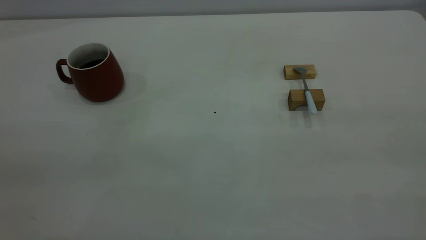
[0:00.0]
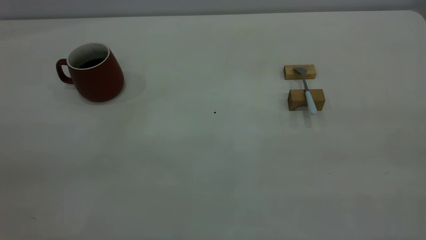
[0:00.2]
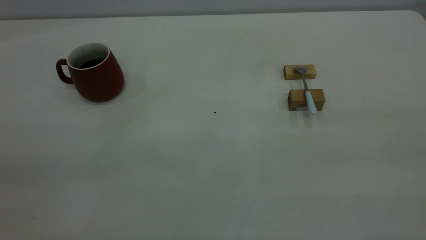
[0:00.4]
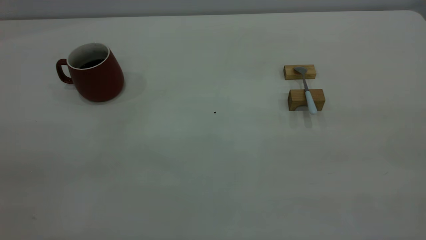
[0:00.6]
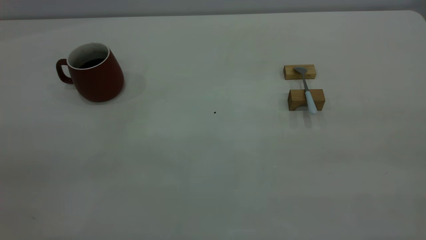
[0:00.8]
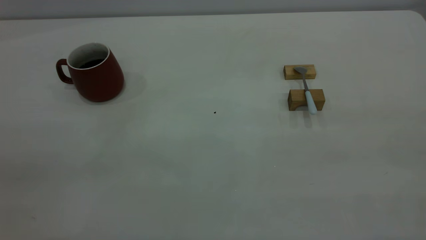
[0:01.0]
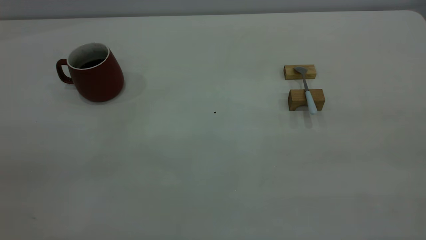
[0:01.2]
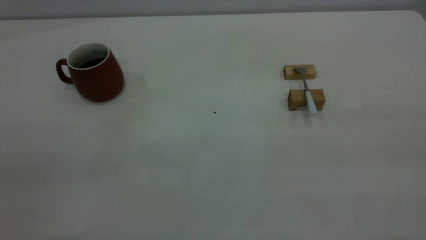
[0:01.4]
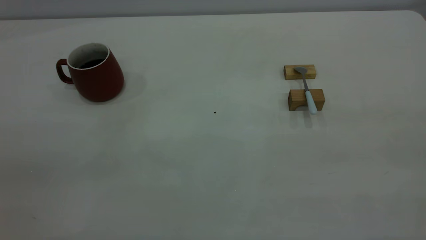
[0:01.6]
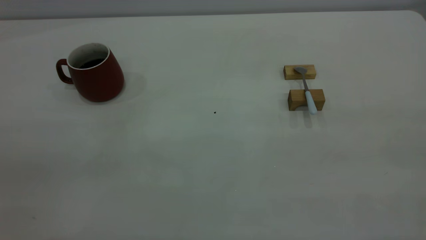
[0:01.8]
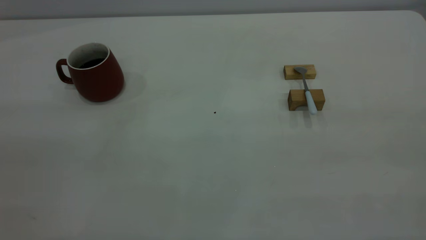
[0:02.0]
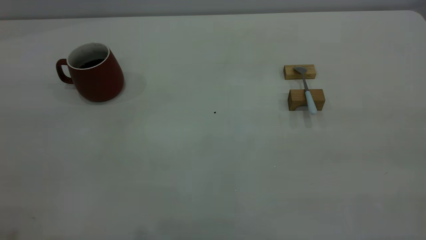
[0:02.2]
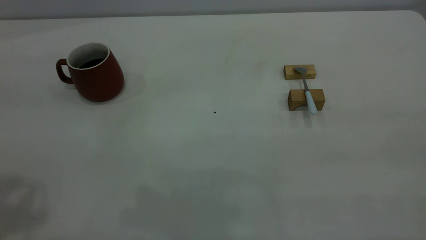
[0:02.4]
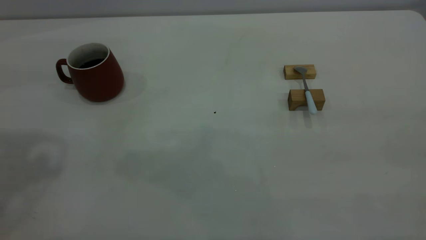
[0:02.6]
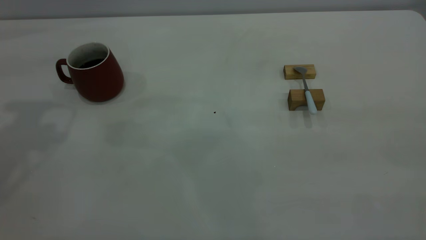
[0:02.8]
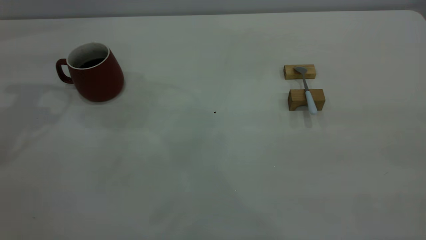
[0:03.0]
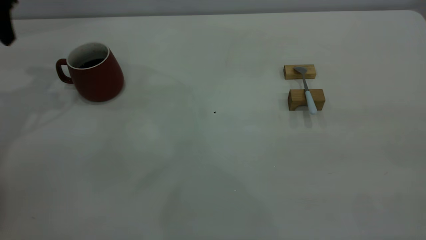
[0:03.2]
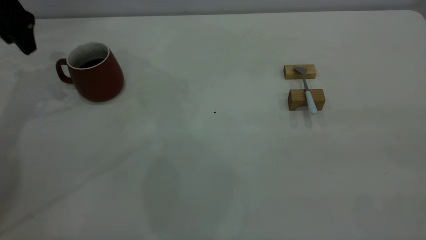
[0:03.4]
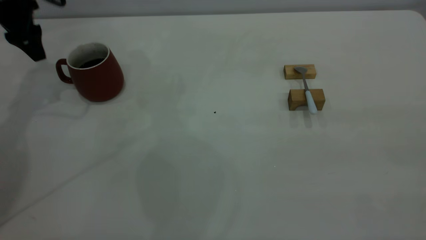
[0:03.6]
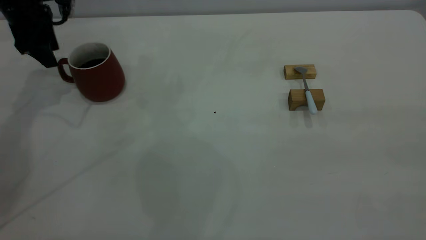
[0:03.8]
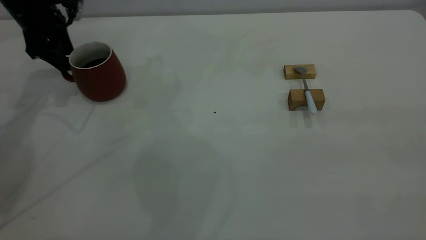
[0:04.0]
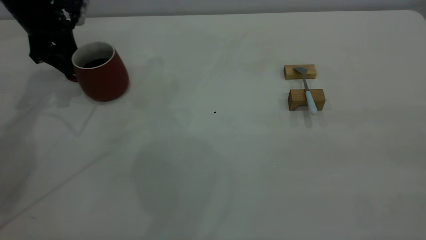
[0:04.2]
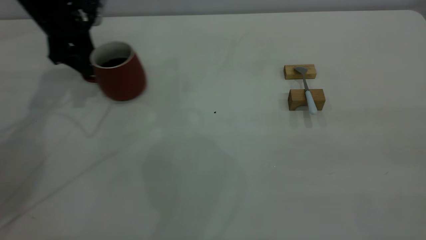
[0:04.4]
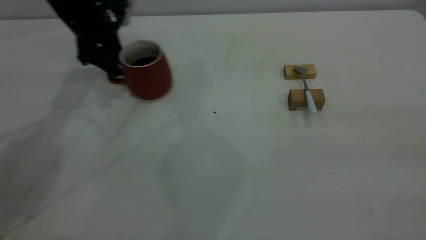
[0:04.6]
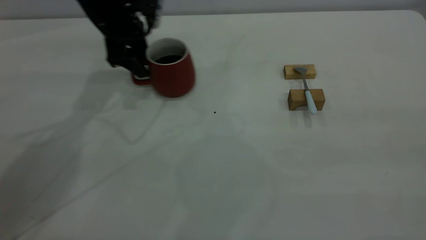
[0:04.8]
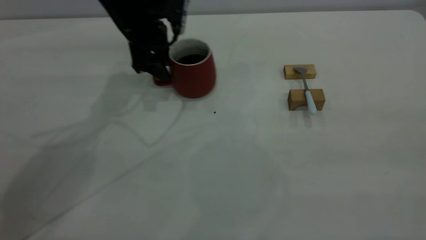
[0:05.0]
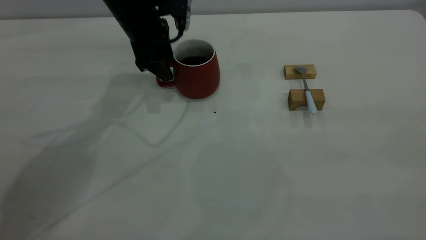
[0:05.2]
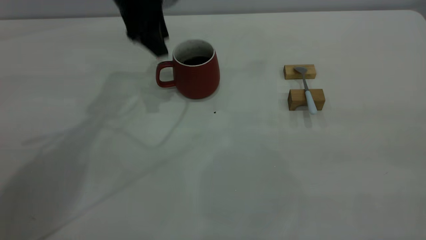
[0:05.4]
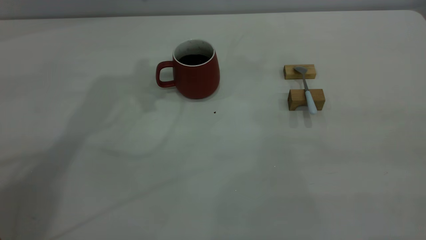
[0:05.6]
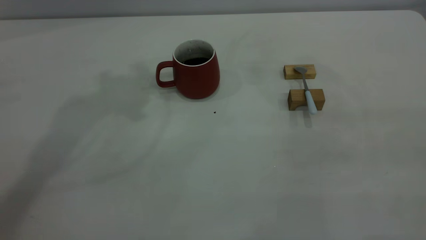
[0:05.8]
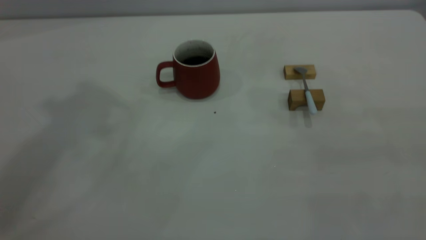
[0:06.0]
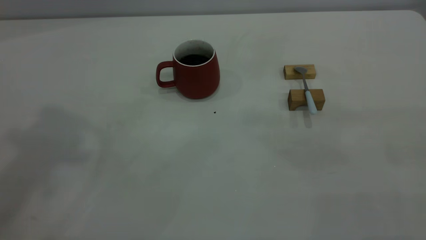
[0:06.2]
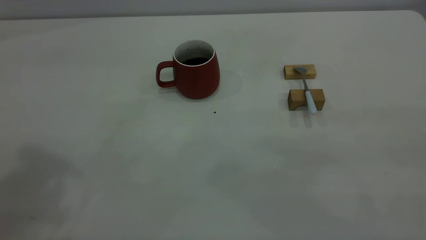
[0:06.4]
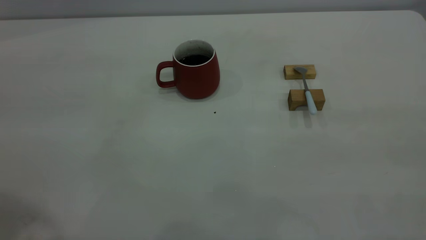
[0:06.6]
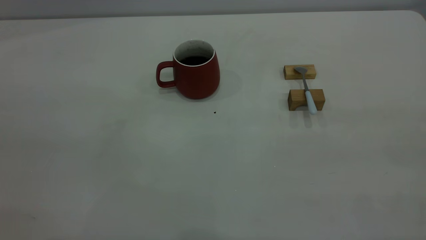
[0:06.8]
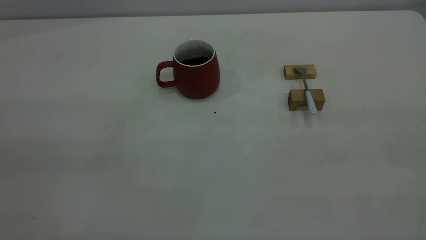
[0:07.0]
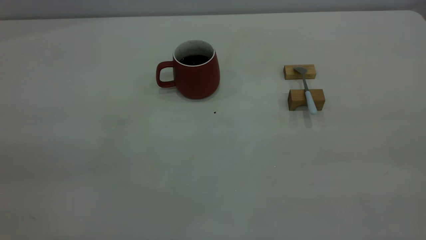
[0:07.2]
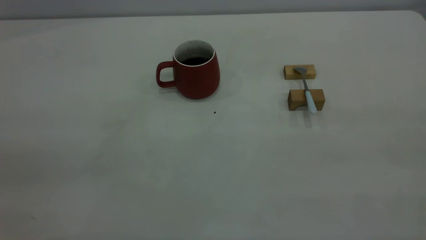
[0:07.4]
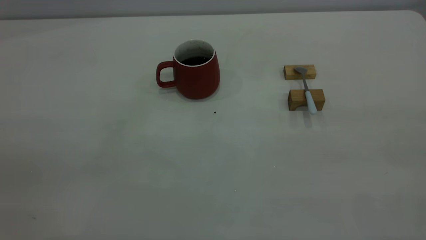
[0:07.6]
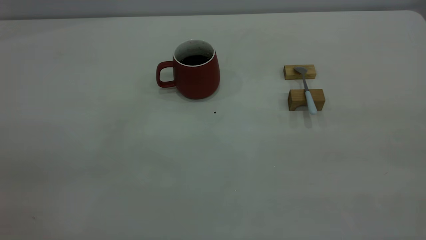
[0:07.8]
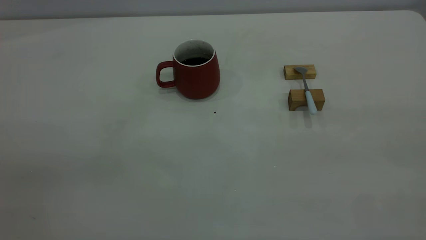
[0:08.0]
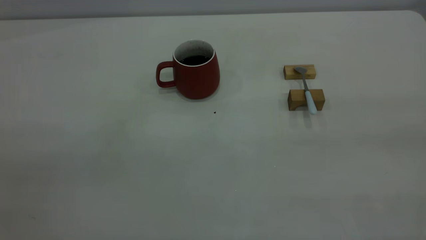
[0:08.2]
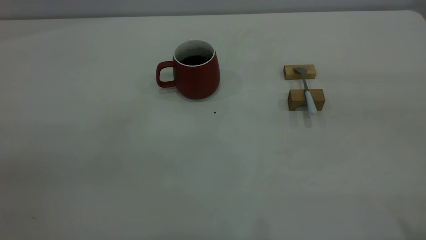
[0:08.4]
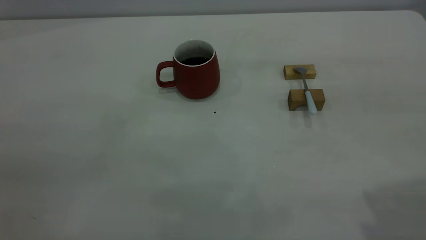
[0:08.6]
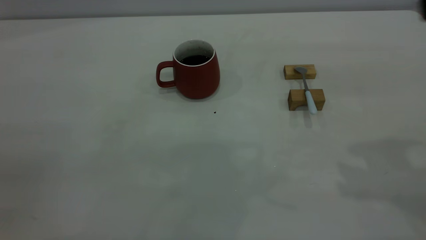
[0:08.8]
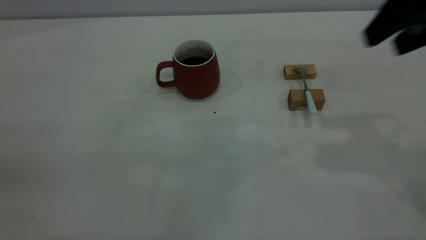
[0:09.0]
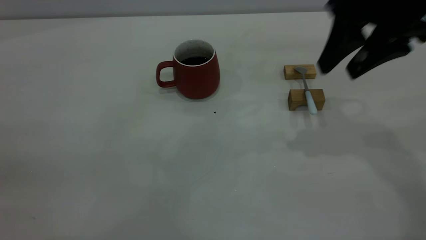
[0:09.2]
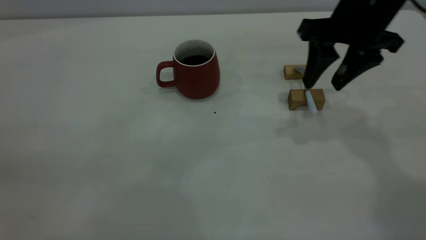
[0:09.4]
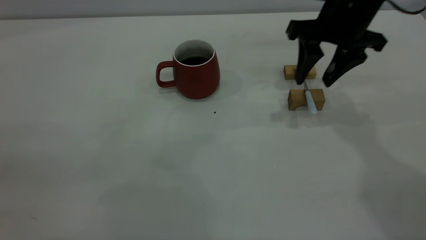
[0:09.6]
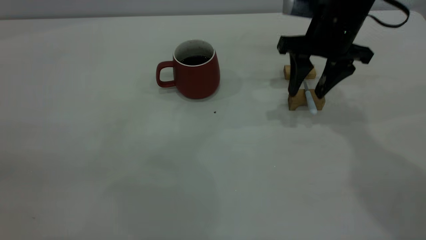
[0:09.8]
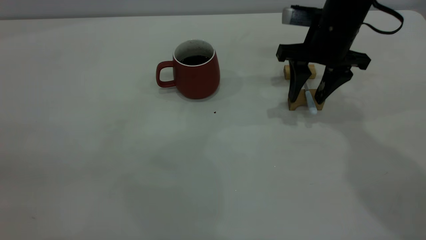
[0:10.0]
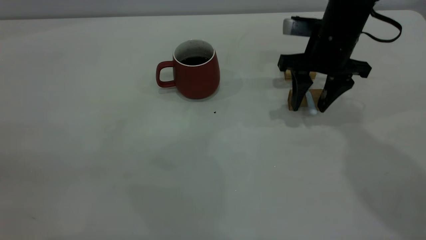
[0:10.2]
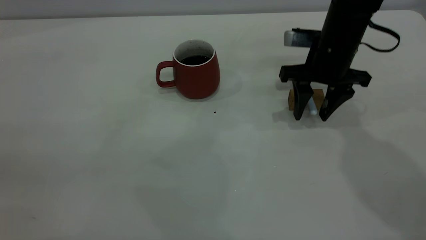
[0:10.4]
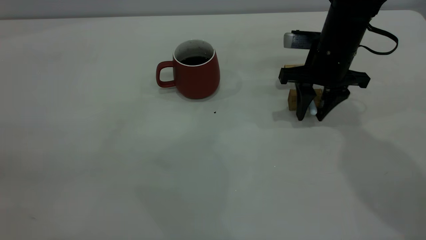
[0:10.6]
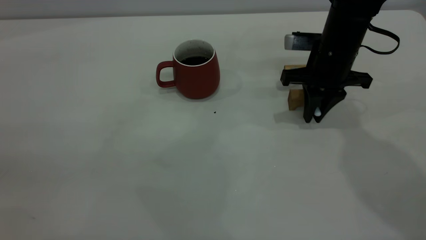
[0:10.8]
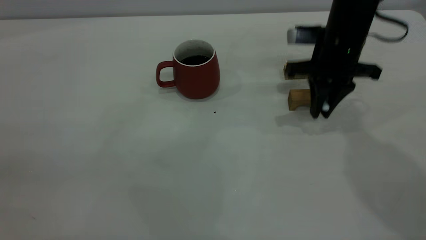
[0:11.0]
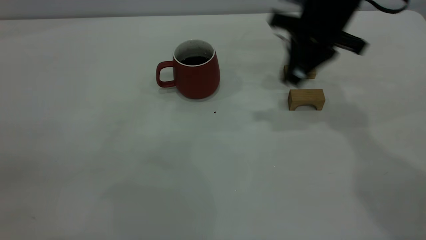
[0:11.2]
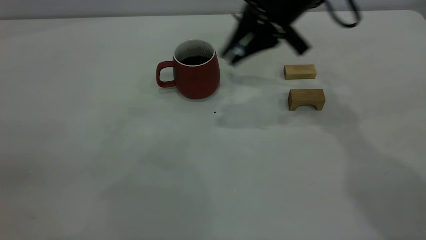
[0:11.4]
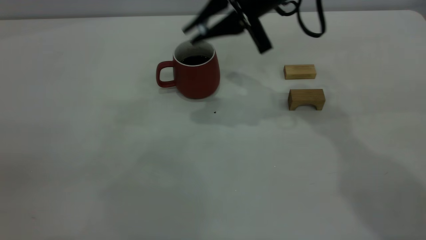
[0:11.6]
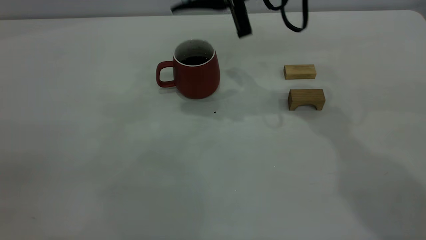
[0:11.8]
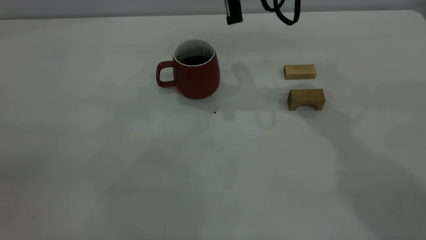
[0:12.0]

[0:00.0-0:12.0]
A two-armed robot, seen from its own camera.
Step, 0:00.0 to 0:05.2: Move the cup with coffee to the center of view.
Step, 0:05.6 to 0:11.0: Pick up the spoon.
0:03.0 to 0:04.4: The left gripper is displaced downward, forward and to the right by about 20 cm.
0:04.4 to 0:06.0: The left gripper heads upward and backward, covering approximately 40 cm.
0:07.6 to 0:09.0: The right gripper travels forward by approximately 30 cm, and opens.
0:09.0 to 0:10.4: The right gripper moves downward and forward, some 20 cm.
0:10.4 to 0:12.0: The right gripper is displaced upward and to the left by roughly 15 cm, and closes its fingers.

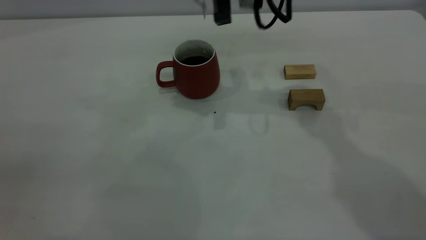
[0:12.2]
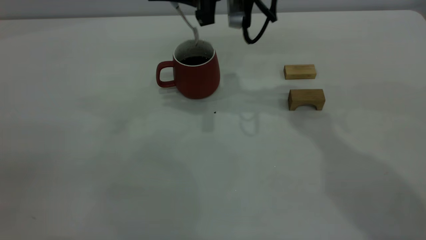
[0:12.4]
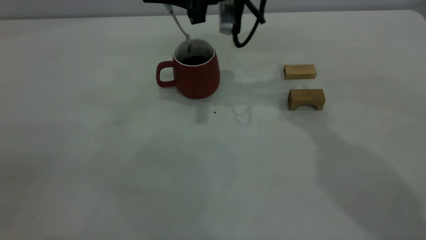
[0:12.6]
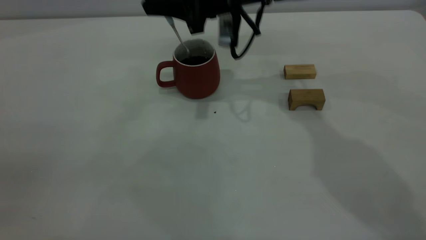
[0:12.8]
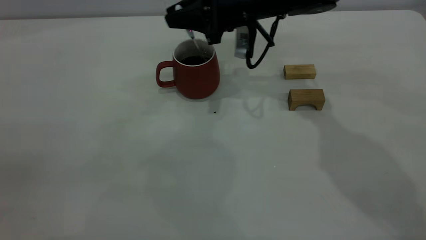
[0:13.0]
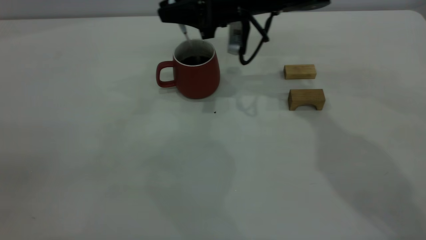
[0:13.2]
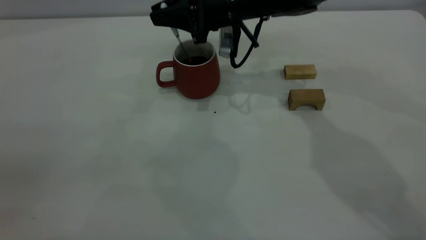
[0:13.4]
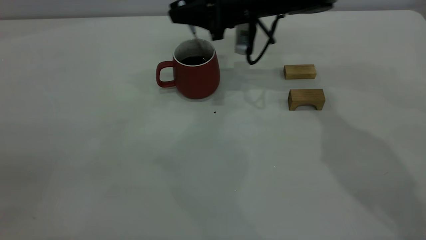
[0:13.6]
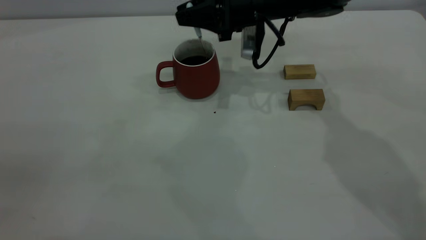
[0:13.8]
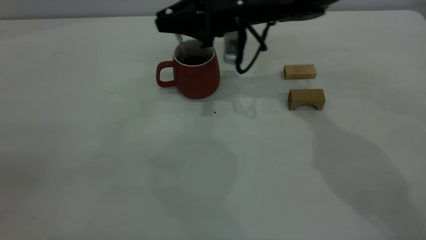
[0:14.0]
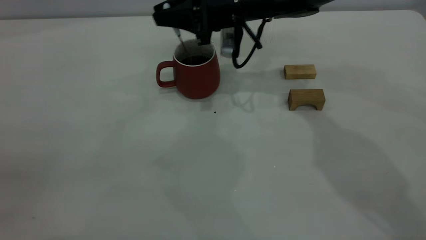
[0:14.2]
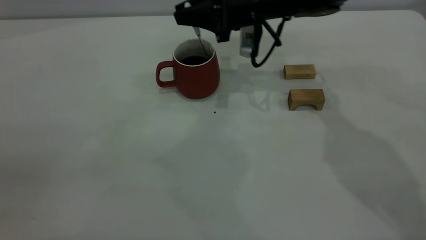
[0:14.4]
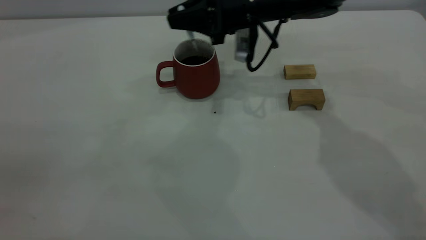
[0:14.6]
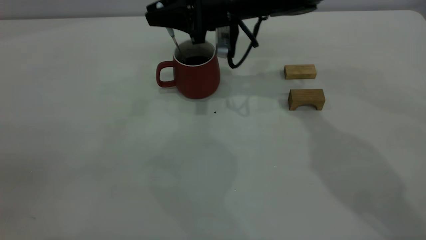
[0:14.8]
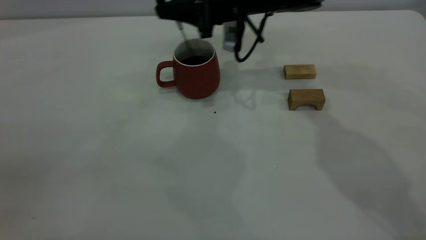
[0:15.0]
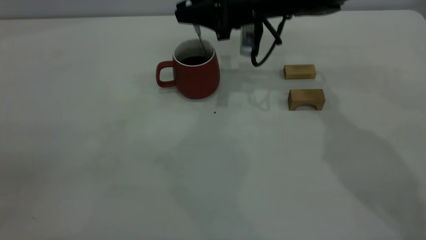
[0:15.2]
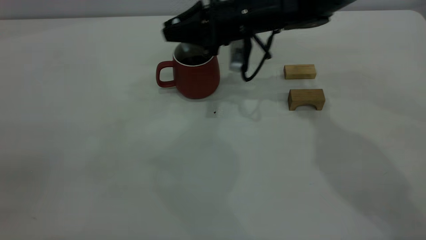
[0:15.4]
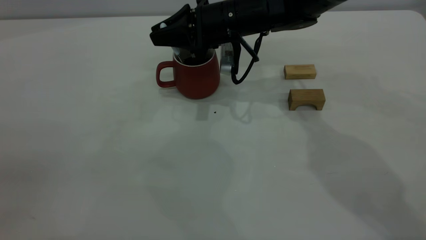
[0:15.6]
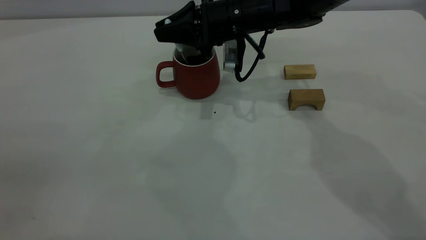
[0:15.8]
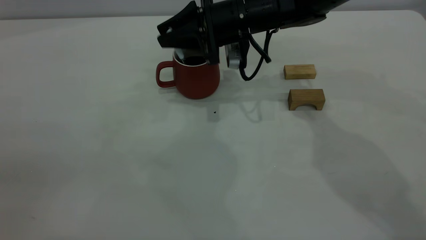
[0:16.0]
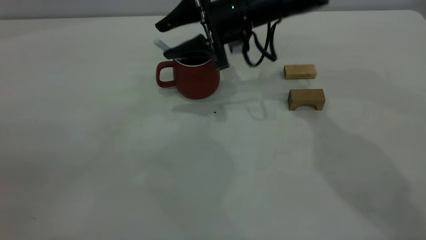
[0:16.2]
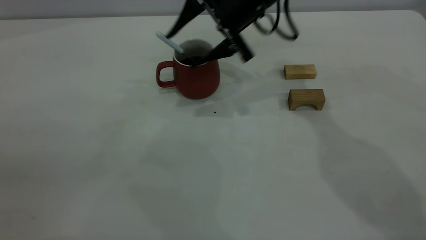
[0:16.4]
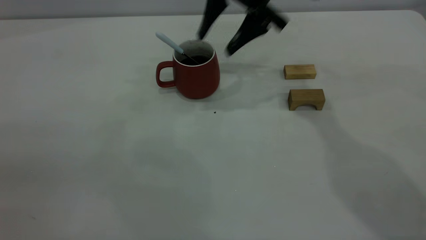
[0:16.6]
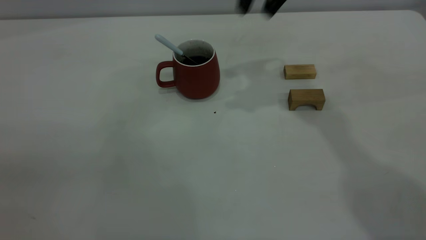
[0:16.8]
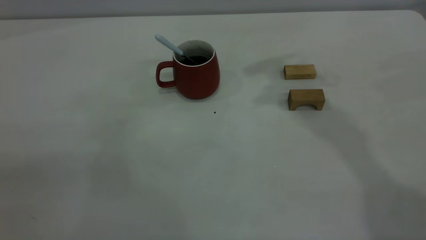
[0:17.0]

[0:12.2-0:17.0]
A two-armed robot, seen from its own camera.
Step, 0:12.2 to 0:16.4: Stir the coffee in the cup.
0:12.2 to 0:13.8: The right gripper heads downward and forward, covering roughly 10 cm.
0:13.8 to 0:15.4: The grippers make only small movements.
0:15.4 to 0:17.0: The right gripper moves upward and to the right, roughly 30 cm, and opens.
